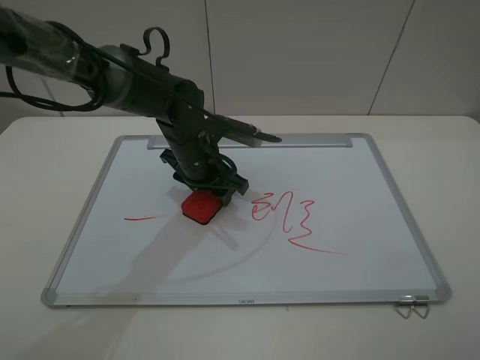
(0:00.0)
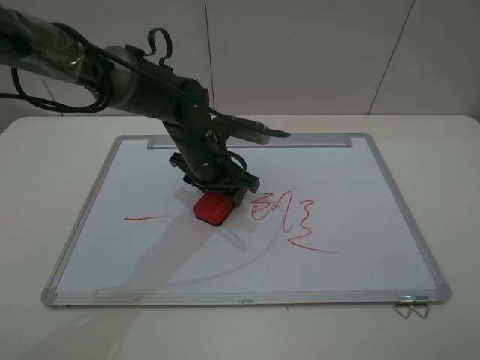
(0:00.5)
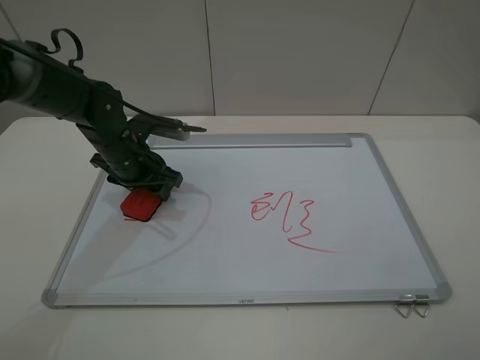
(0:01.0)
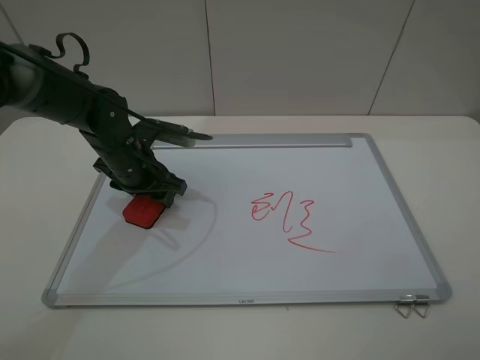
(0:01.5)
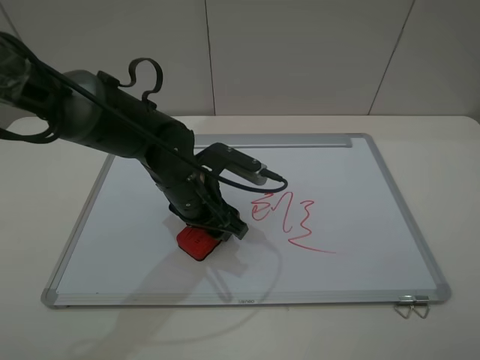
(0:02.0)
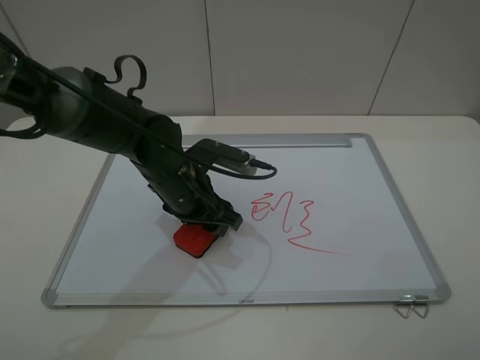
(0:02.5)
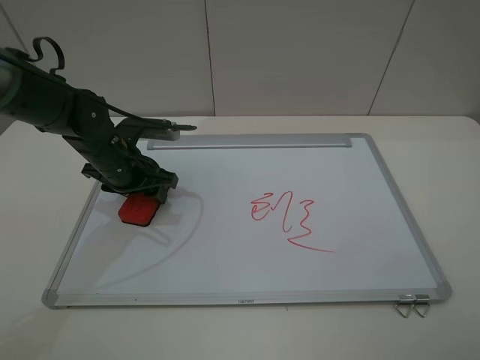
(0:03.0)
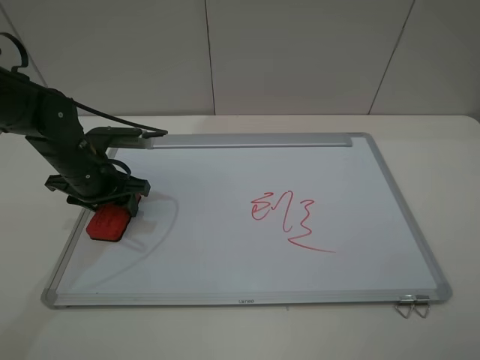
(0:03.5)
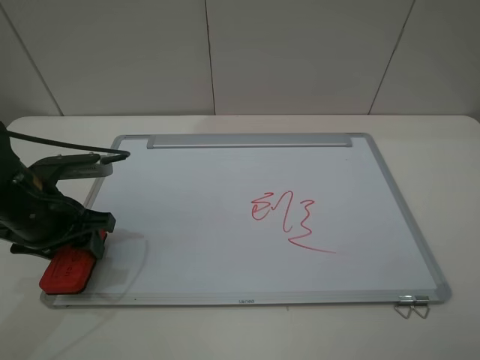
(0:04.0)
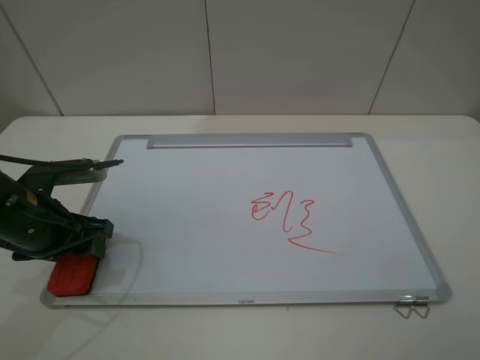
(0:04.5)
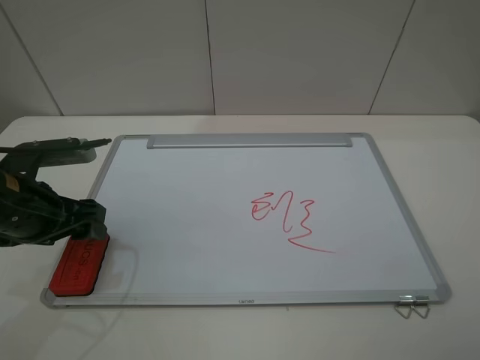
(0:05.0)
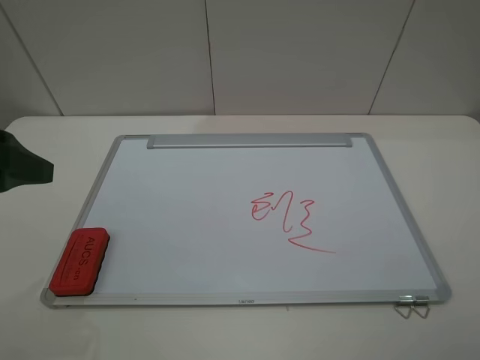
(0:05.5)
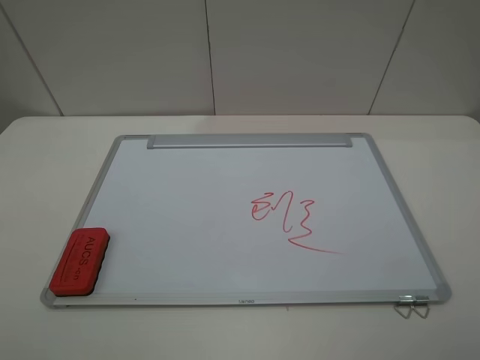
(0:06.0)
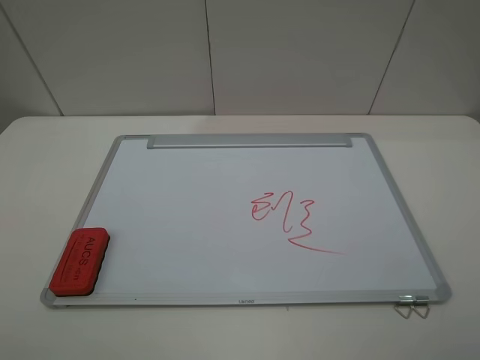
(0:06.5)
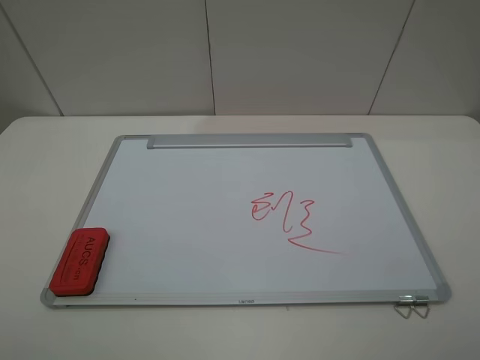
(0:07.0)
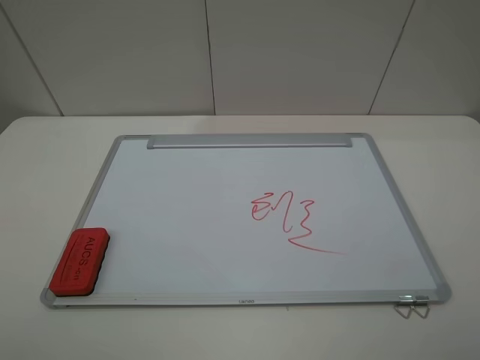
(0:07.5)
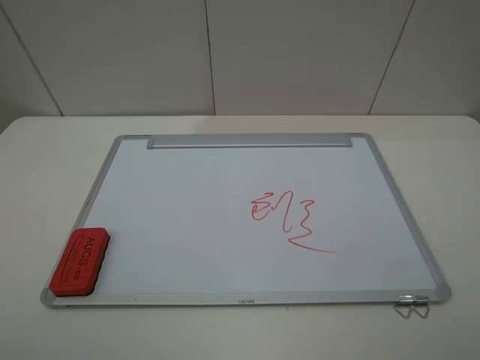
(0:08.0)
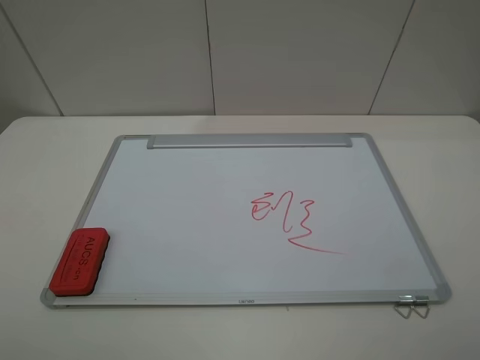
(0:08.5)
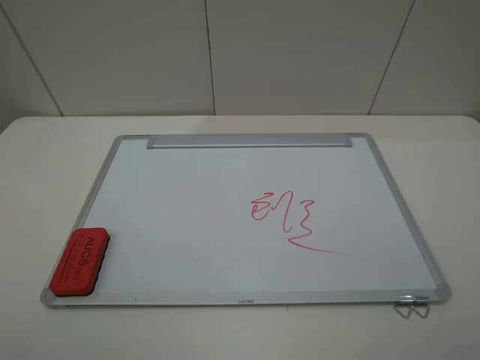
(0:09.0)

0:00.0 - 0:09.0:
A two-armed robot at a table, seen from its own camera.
Step, 0:00.0 - 0:03.5: Grasp the eraser and wipe the blackboard with the left gripper.
Step, 0:04.0 - 0:05.0: Place the eraser with the left gripper.
0:00.0 - 0:02.0: The left gripper goes some 5 cm backward, and travels to the left and back again, approximately 15 cm each way.
0:02.0 - 0:04.5: The left gripper shifts some 20 cm to the left, and opens its fingers.
0:04.5 - 0:07.0: The left gripper travels backward and upward by roughly 25 cm, and opens up.
